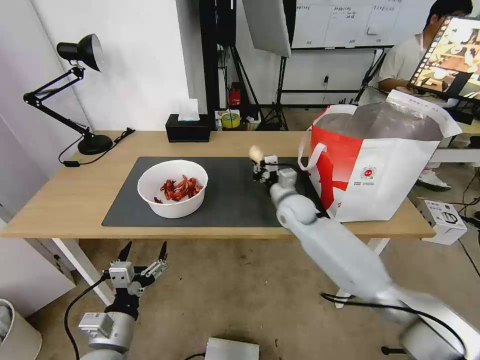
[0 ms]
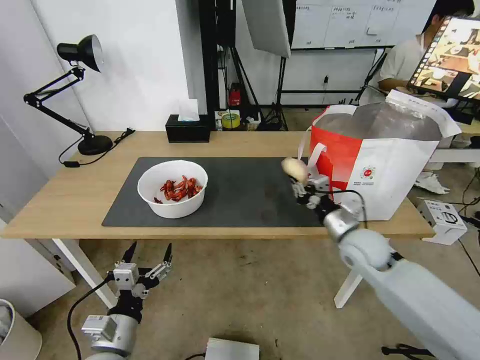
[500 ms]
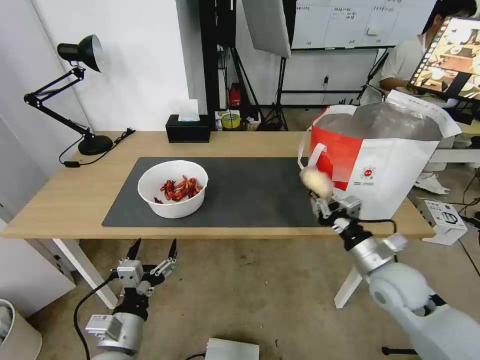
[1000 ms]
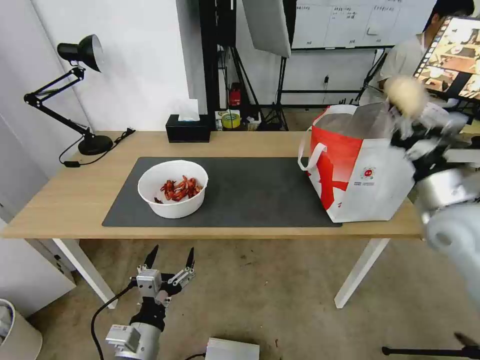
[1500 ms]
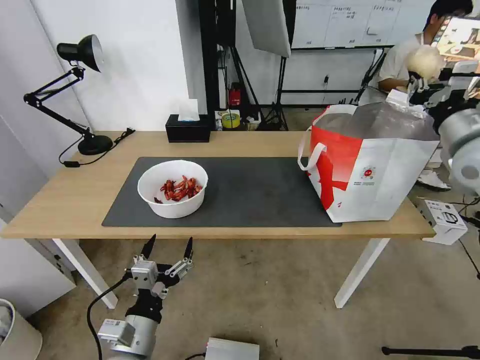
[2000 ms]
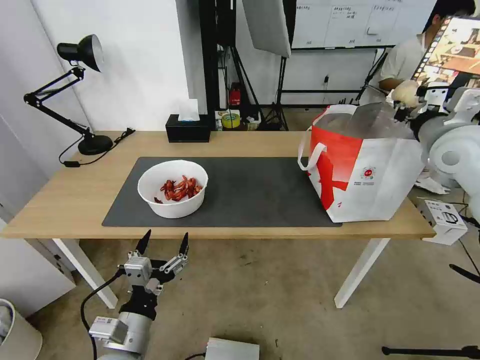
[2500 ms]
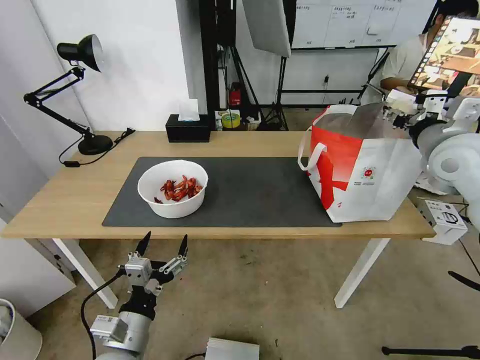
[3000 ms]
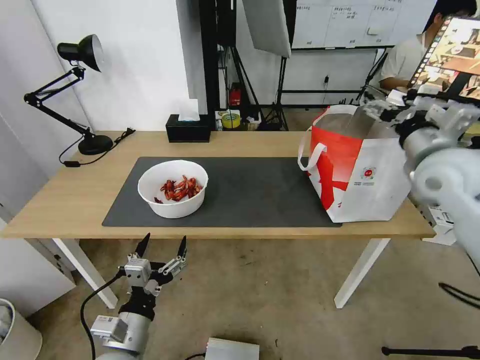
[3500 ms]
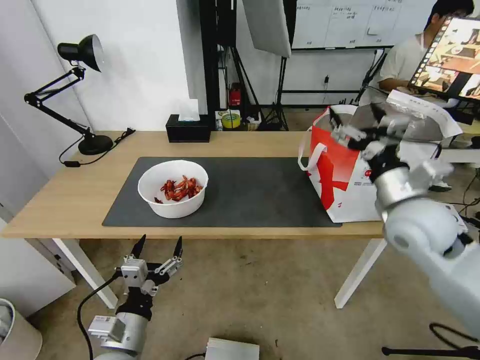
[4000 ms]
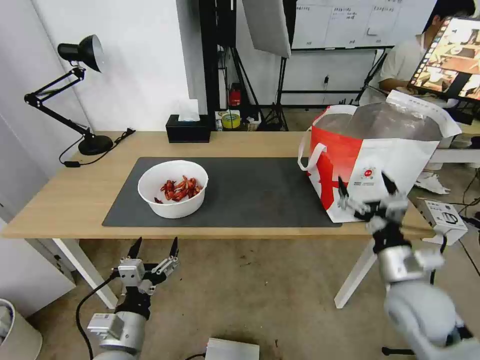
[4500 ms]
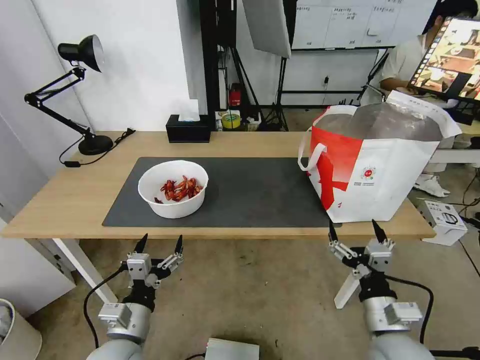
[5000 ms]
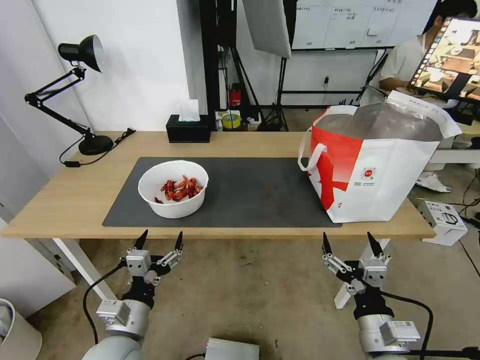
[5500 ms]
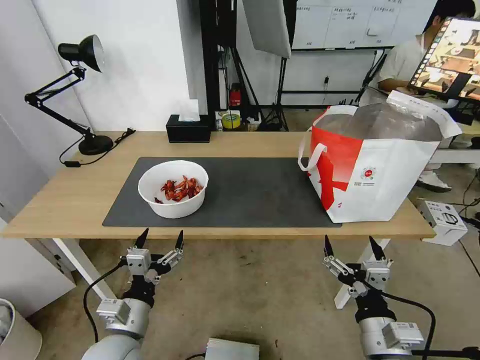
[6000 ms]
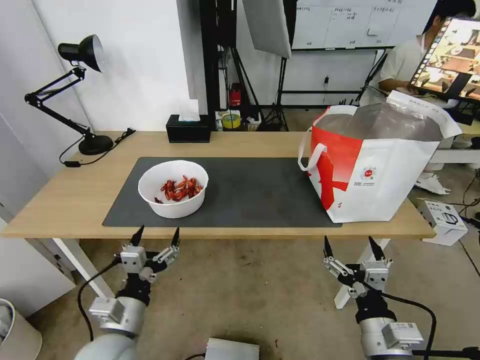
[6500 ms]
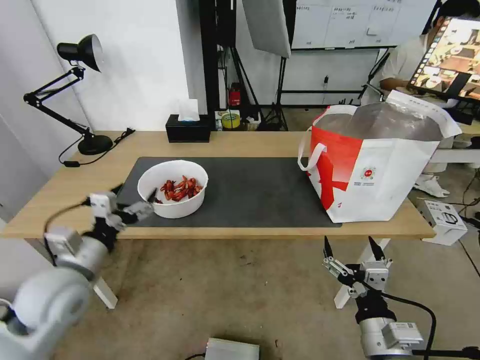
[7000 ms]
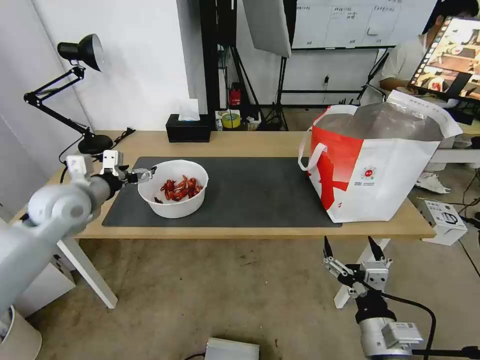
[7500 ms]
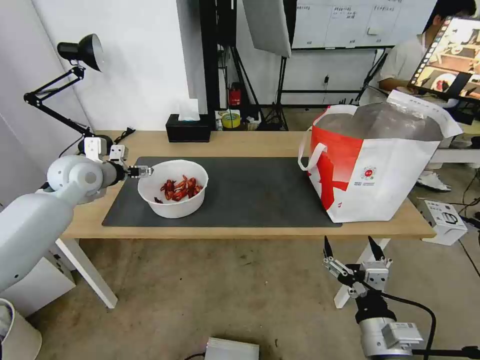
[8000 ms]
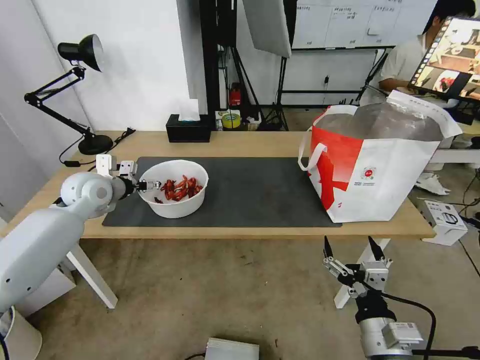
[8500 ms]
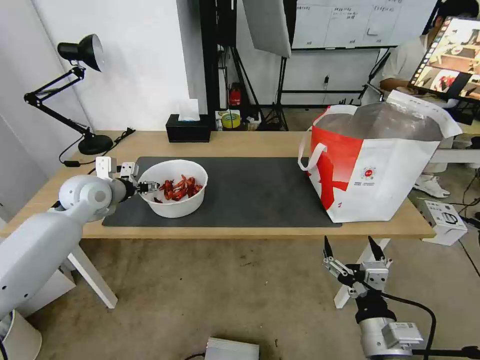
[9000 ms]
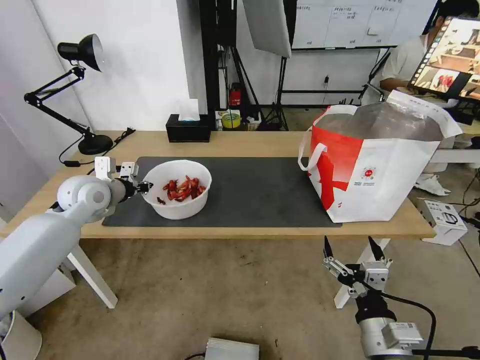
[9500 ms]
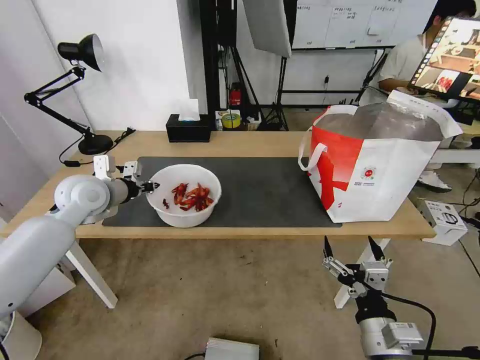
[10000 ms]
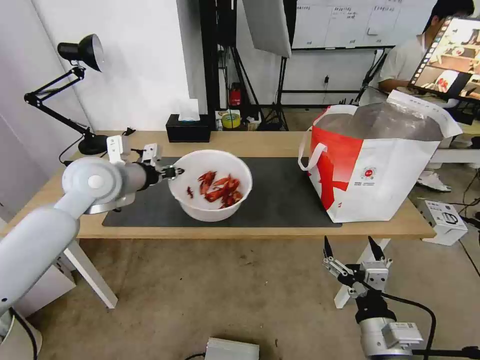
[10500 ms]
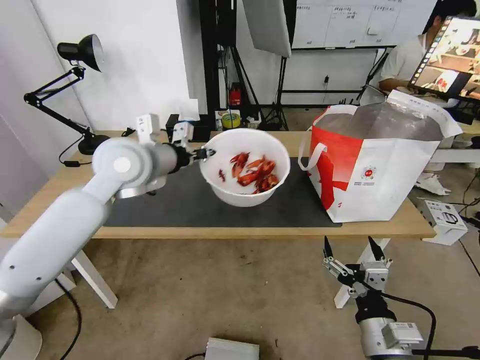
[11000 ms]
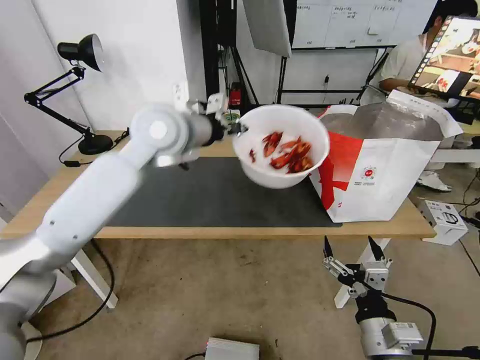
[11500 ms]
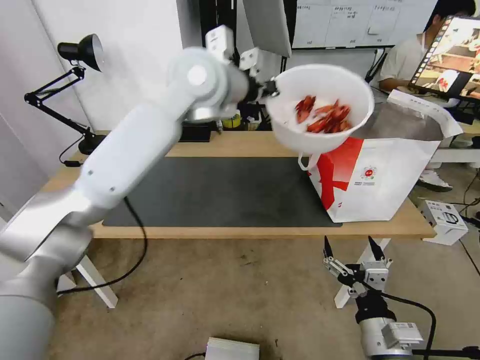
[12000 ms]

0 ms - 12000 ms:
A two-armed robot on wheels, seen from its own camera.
Task of the whole recording: Pick up the trash from the table and place it into the takeout bag.
0 ms - 2000 ms: The left gripper goes some 5 cm to the right; the right gripper heads to the right and upward, covering approximately 35 cm.
2000 ms - 4000 ms: The right gripper travels to the left, downward and backward by about 15 cm, and opens up.
4000 ms - 6000 ms: The right gripper shifts roughly 25 cm backward and downward.
6000 ms - 8000 ms: The left gripper goes roughly 40 cm forward, upward and to the left.
8000 ms - 10000 ms: The left gripper closes.
10000 ms - 12000 ms: The left gripper shifts approximately 35 cm to the right and upward.

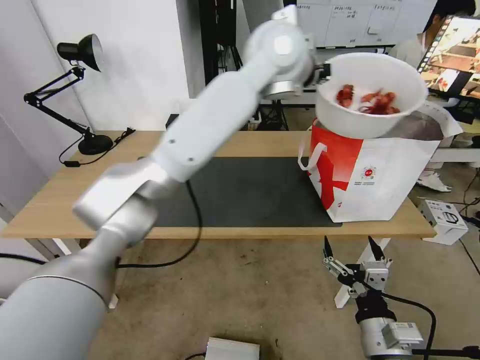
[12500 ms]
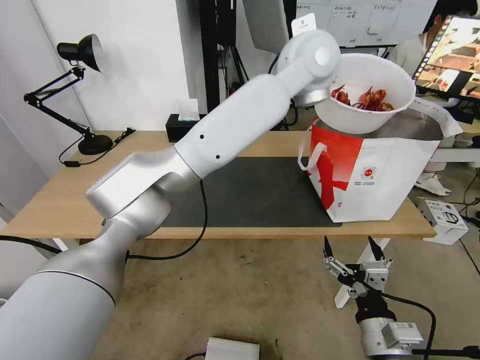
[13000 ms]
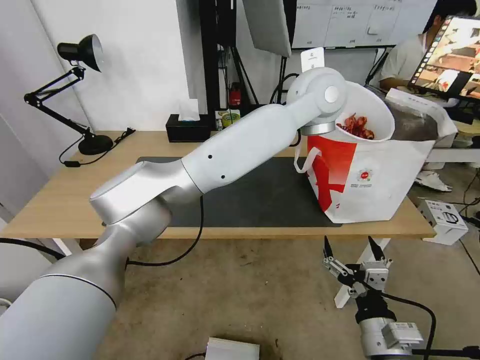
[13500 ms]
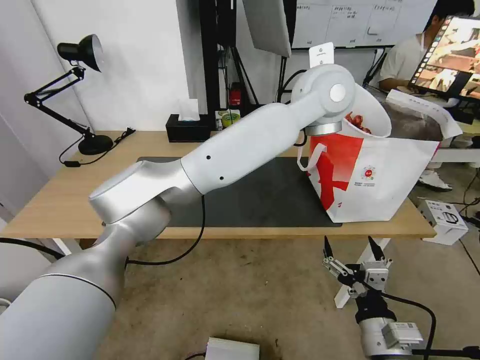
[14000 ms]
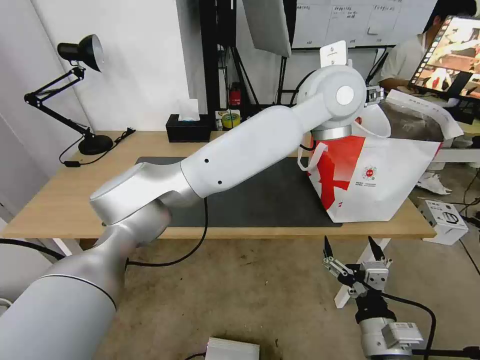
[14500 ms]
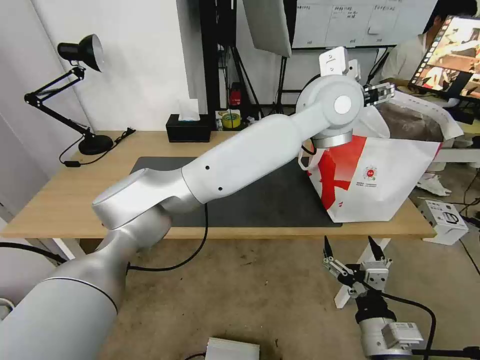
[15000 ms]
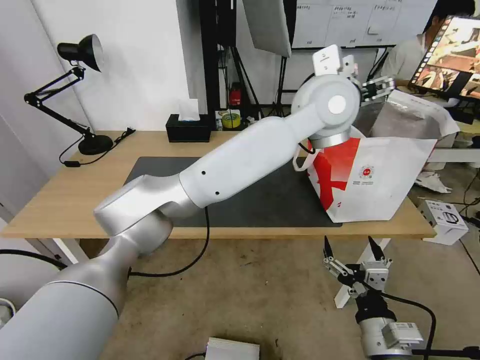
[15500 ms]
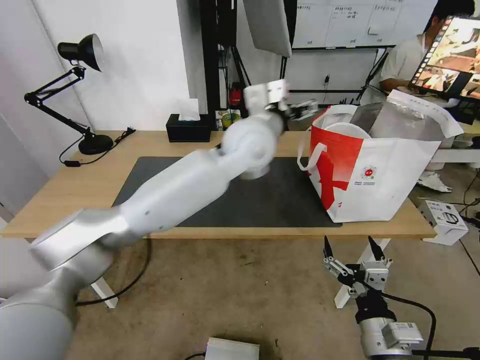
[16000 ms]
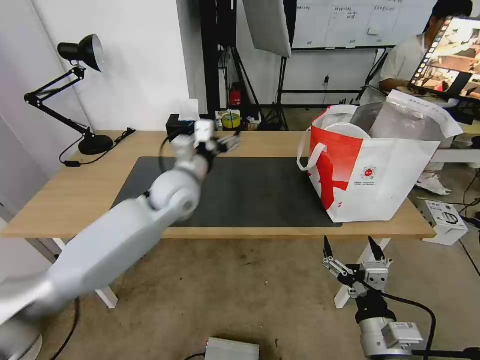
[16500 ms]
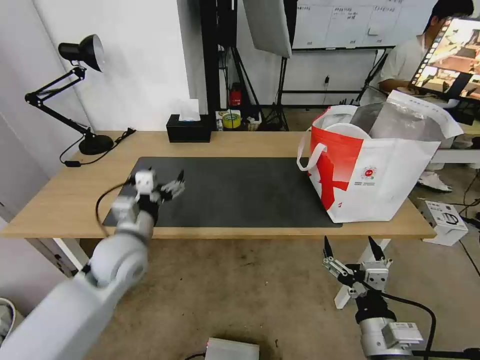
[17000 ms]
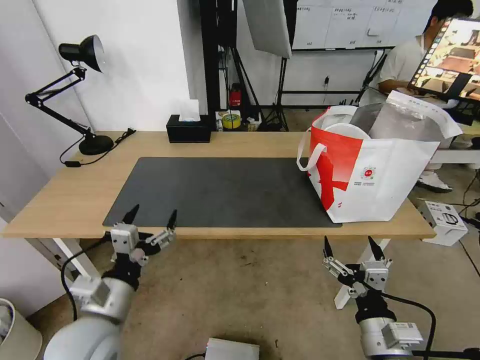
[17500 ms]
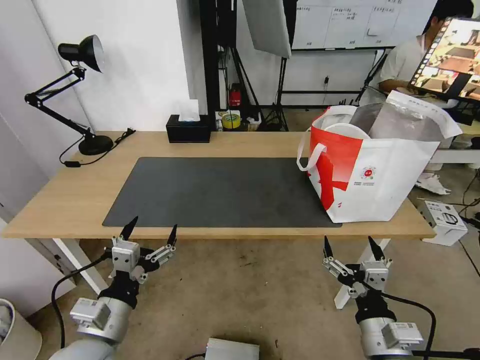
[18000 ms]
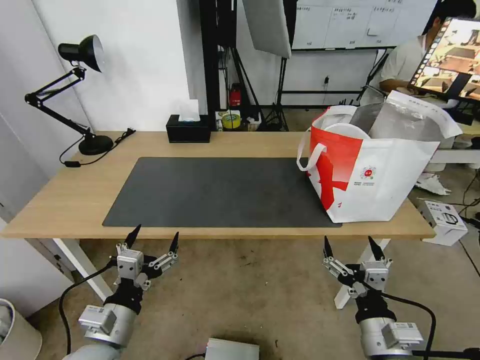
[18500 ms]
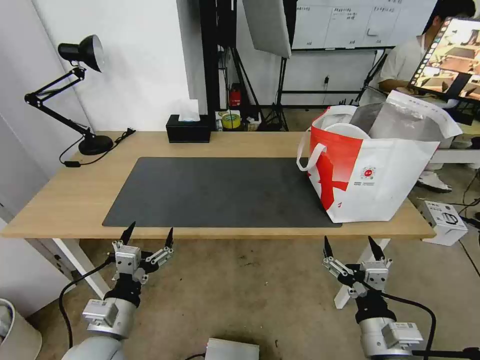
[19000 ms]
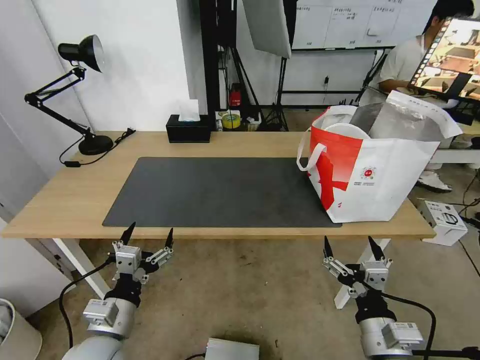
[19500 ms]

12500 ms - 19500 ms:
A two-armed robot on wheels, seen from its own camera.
Task of the whole recording: Pick up the trash from the table and place it into the takeout bag.
12500 ms - 14500 ms: The left gripper travels to the right and backward by about 10 cm, and opens up.
14500 ms - 16000 ms: The left gripper shifts roughly 15 cm to the left and downward.
16000 ms - 17500 ms: The left gripper travels backward, to the left and downward by about 40 cm.
17500 ms - 19500 ms: The left gripper travels downward by about 5 cm.

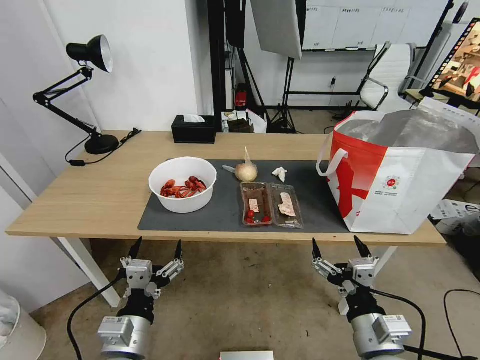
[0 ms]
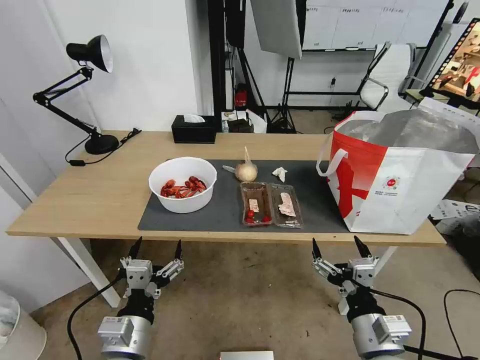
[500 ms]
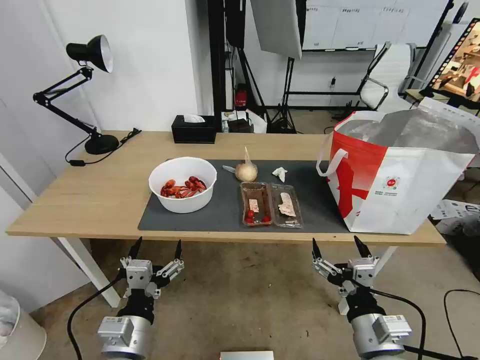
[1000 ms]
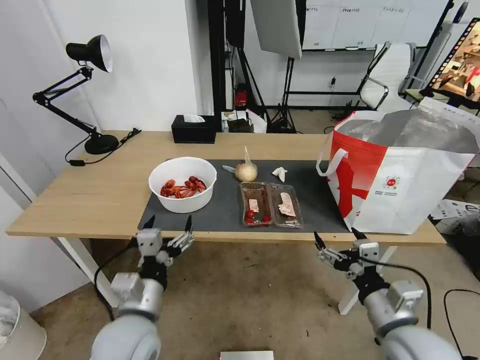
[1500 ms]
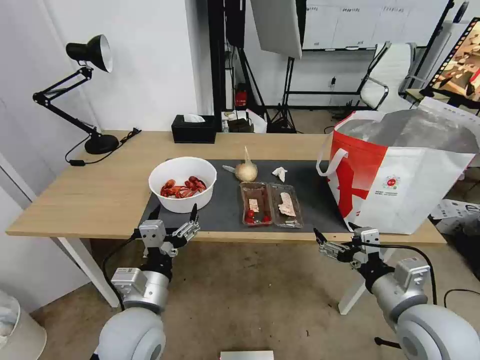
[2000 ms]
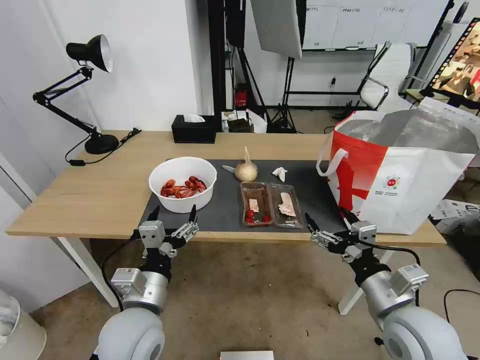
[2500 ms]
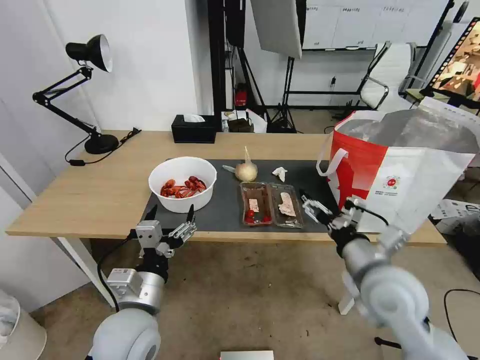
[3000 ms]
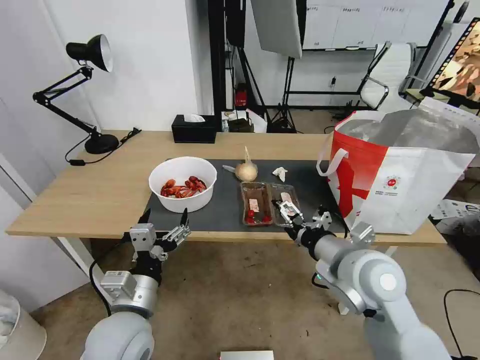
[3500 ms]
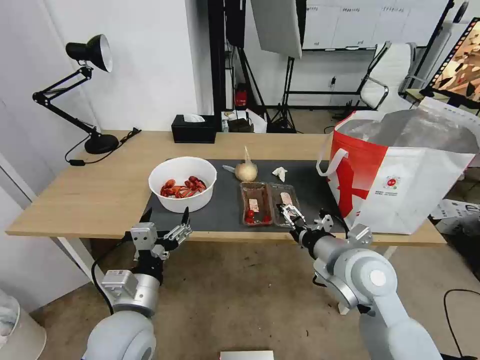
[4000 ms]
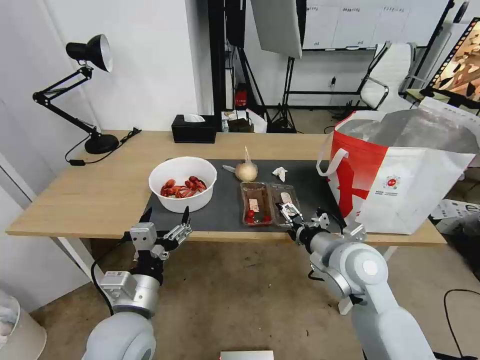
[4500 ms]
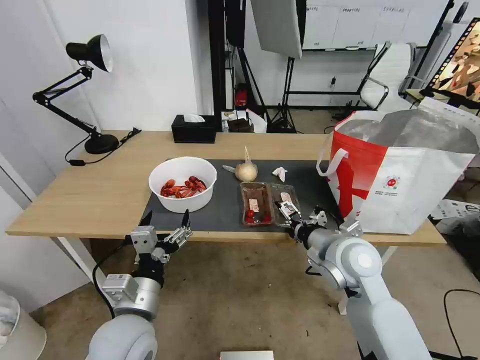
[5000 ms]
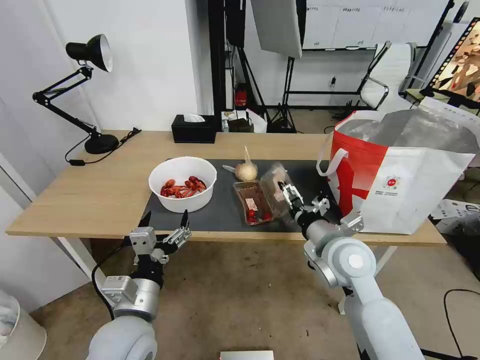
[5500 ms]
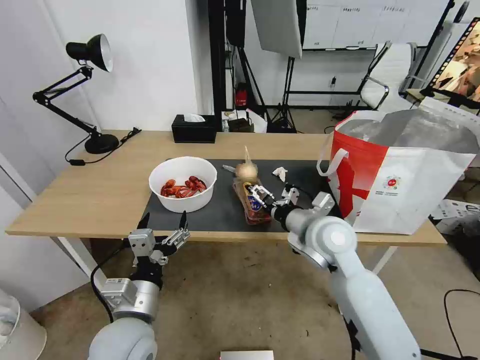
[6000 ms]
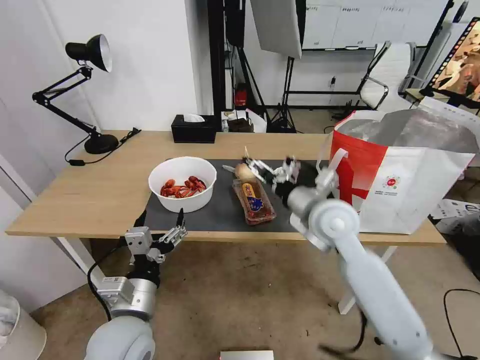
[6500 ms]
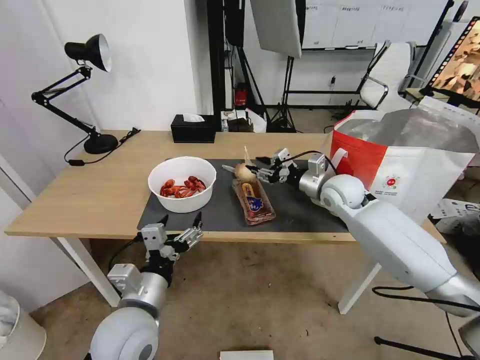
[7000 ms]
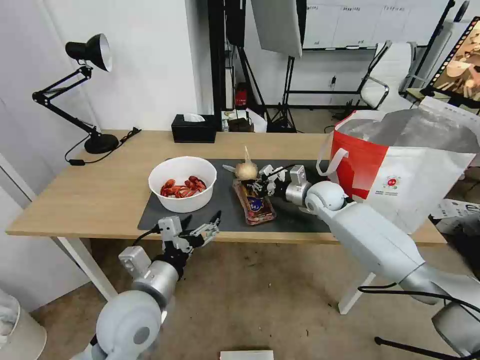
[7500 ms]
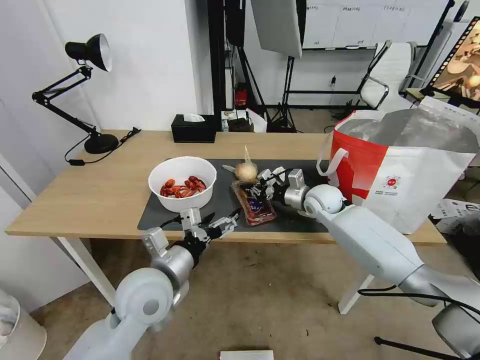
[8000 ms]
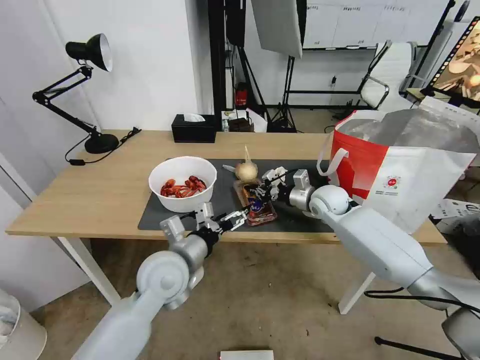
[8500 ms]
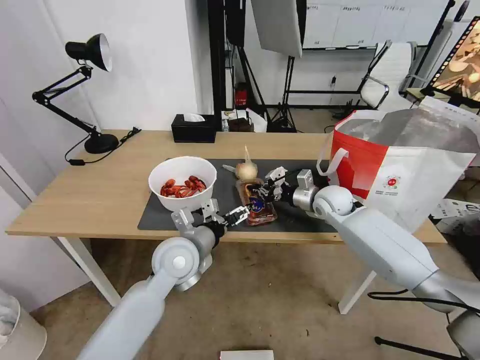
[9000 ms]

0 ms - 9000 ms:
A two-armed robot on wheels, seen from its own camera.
Task of the whole recording: Pick up the trash from the table and place it into the takeout bag.
2000 ms - 4500 ms: The right gripper goes about 15 cm forward and to the left.
4500 ms - 7000 ms: The right gripper goes roughly 20 cm forward, and closes.
7000 ms - 9000 ms: The left gripper travels forward by approximately 15 cm, while the right gripper heads downward, covering approximately 5 cm, and closes.
